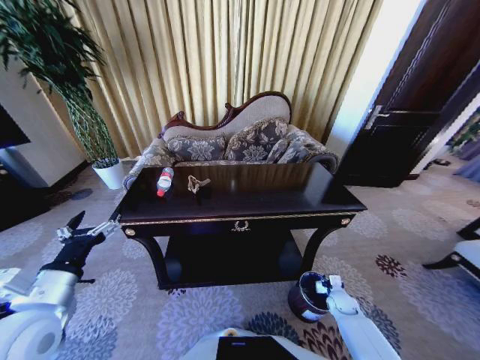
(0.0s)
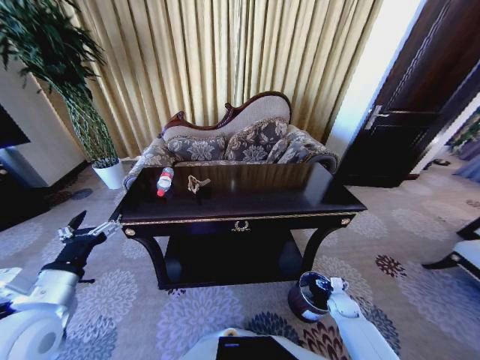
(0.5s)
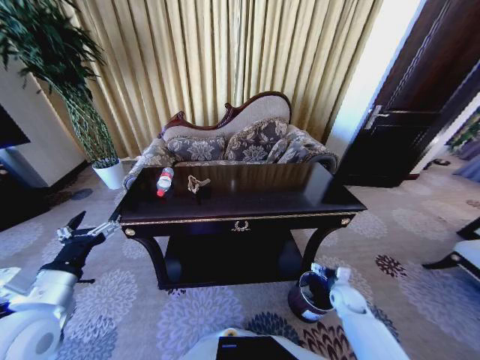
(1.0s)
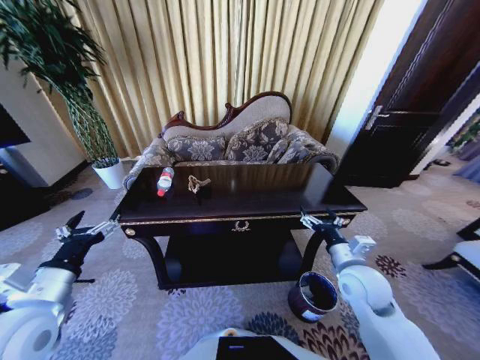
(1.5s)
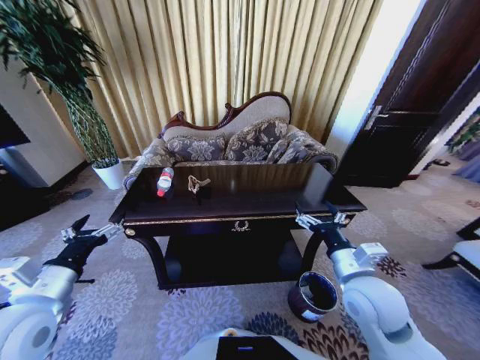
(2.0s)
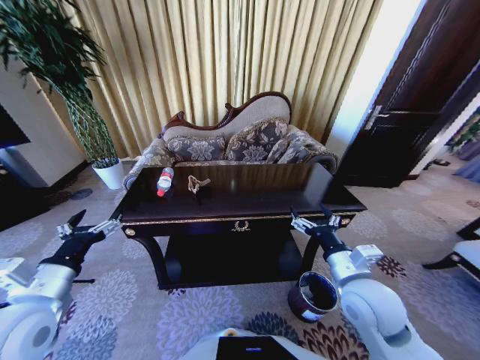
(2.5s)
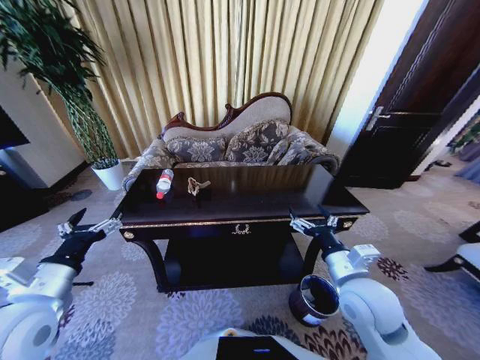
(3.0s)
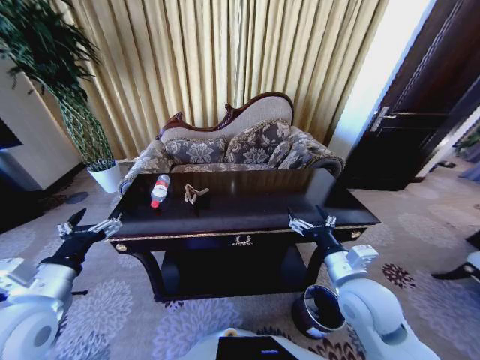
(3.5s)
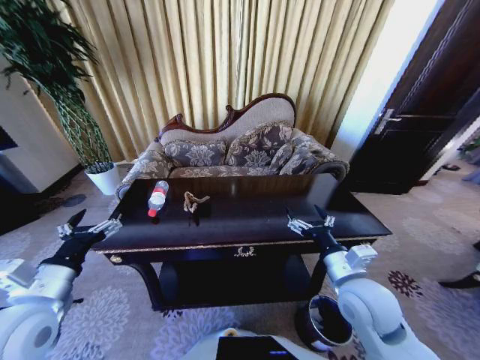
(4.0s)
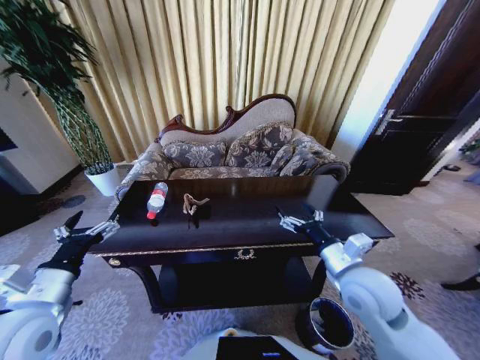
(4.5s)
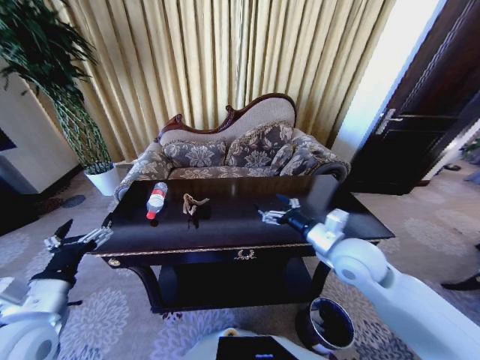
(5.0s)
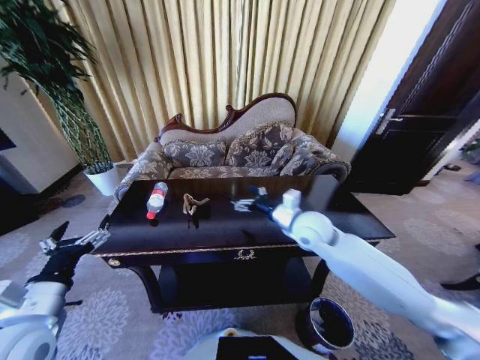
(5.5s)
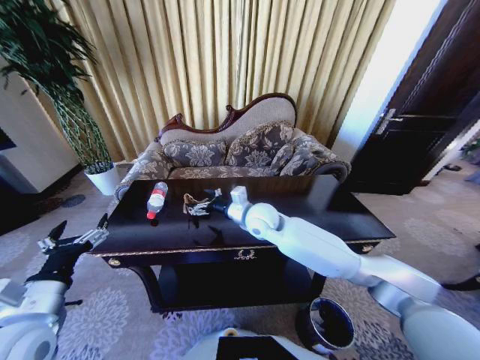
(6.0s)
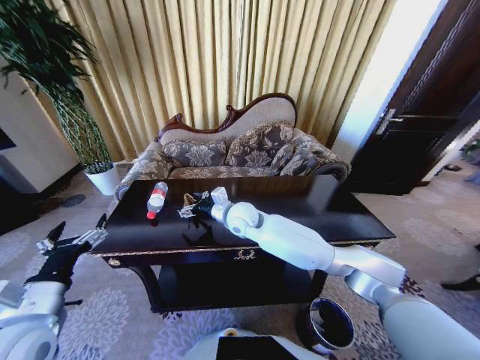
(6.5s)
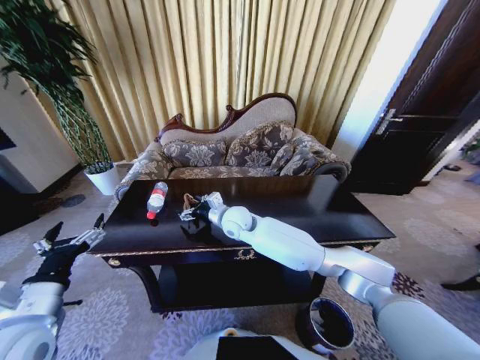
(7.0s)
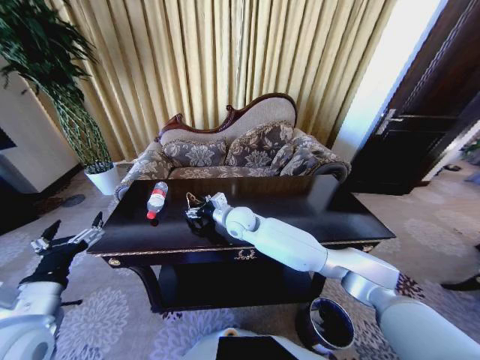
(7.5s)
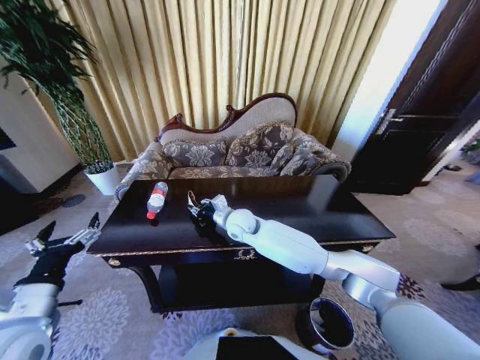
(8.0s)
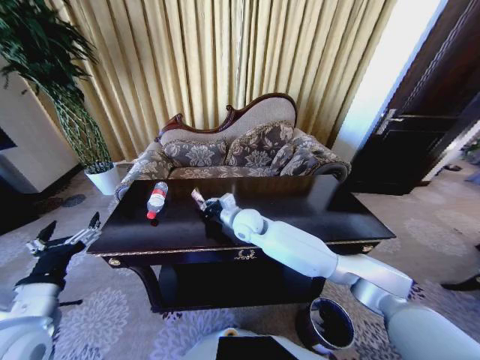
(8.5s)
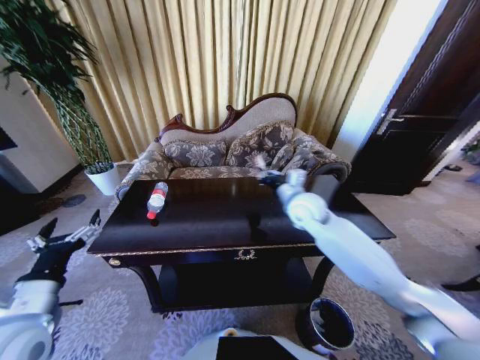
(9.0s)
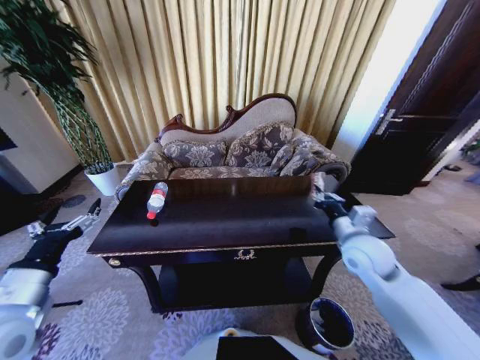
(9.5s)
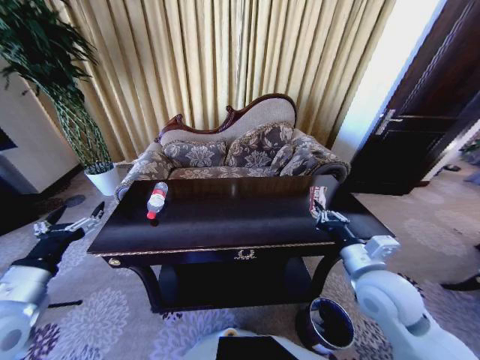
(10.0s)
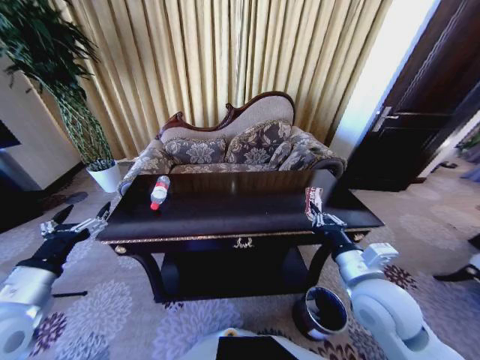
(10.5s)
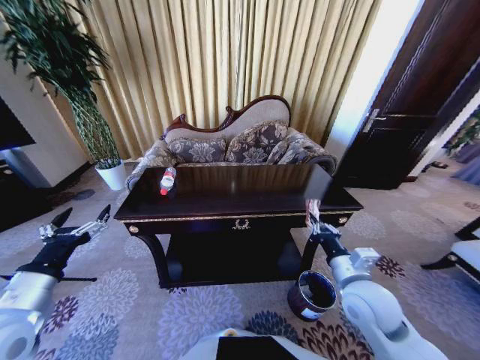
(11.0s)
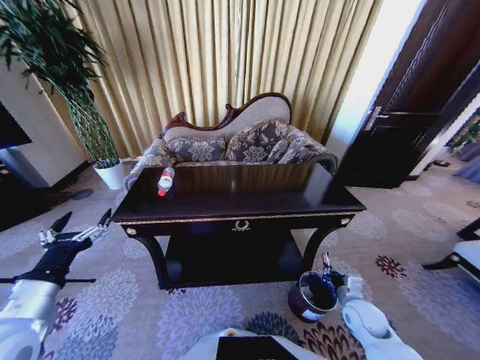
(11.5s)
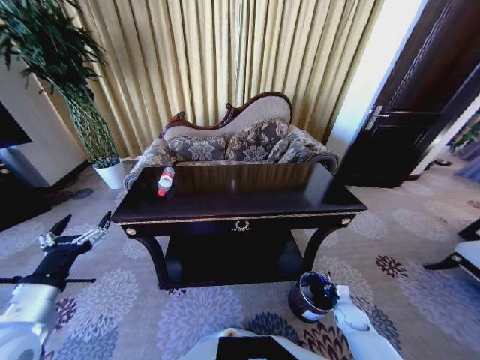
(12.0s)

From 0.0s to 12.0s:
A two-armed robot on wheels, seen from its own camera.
Task of the whole recording: Move to the front of the table and place the trash on the table into the trash bin.
From 0.0s to 2.0s: The right gripper heads upward and to the left, covering roughly 40 cm, and opens its fingers.
From 4.0s to 6.0s: The right gripper shifts some 30 cm forward and to the left.
From 6.0s to 8.0s: The right gripper goes roughly 5 cm to the left, and closes.
From 8.0s to 10.0s: The right gripper heads to the right and backward, covering roughly 35 cm.
From 10.0s to 12.0s: The right gripper heads downward, covering some 35 cm.

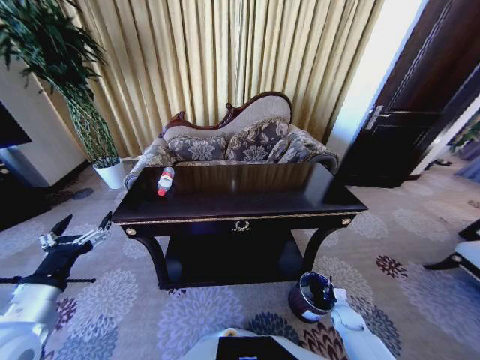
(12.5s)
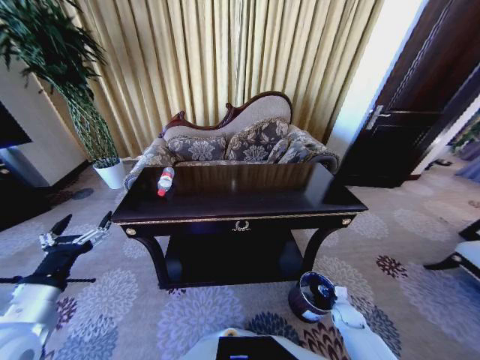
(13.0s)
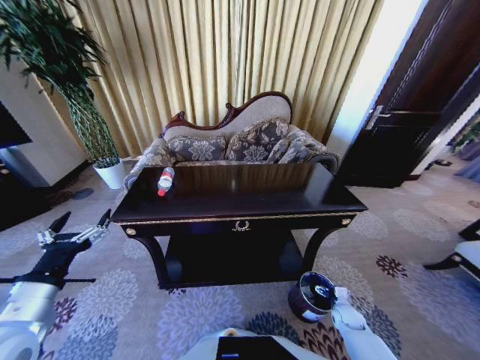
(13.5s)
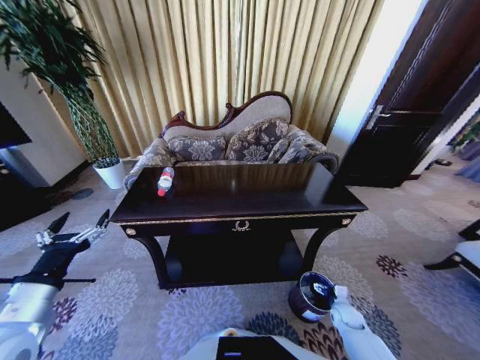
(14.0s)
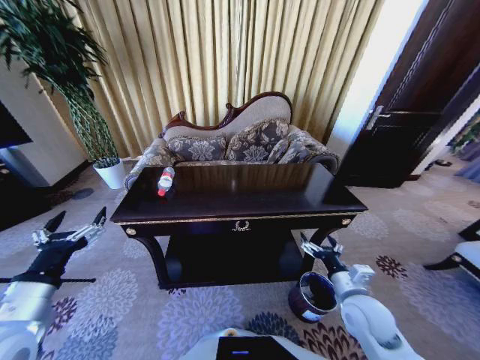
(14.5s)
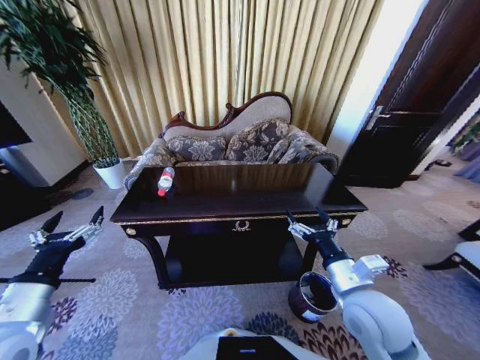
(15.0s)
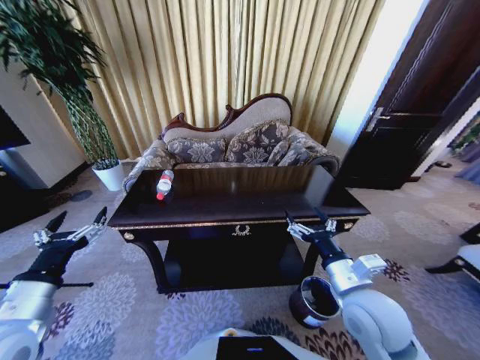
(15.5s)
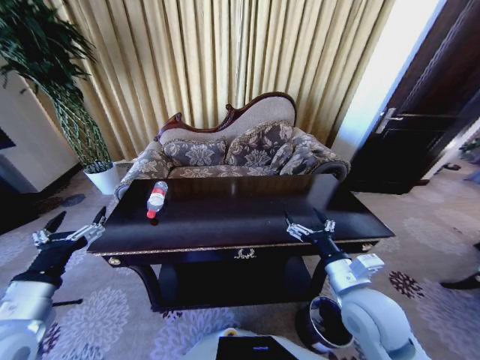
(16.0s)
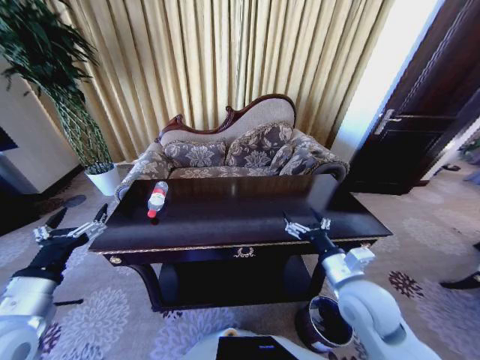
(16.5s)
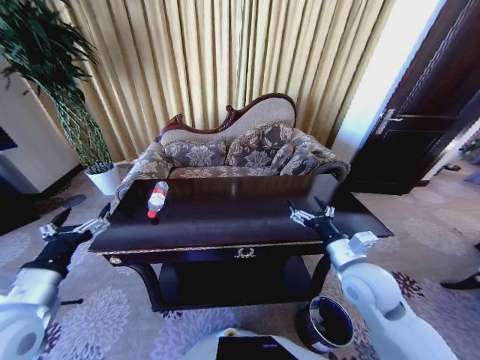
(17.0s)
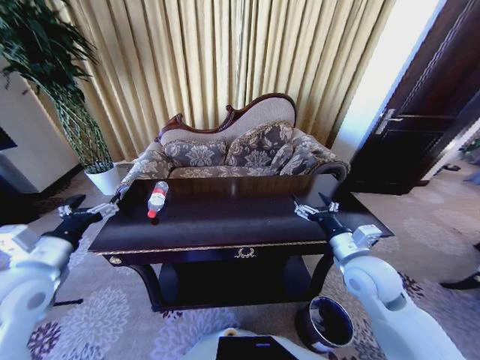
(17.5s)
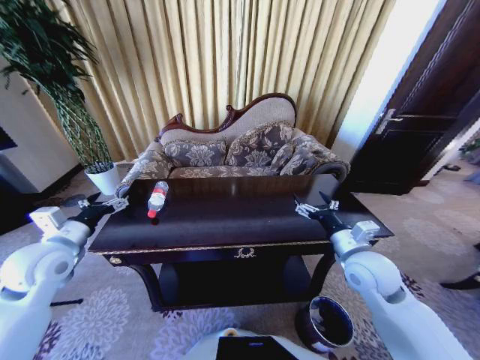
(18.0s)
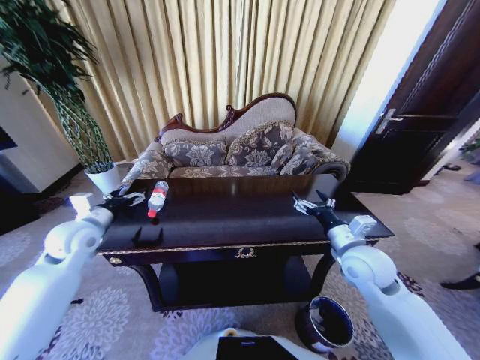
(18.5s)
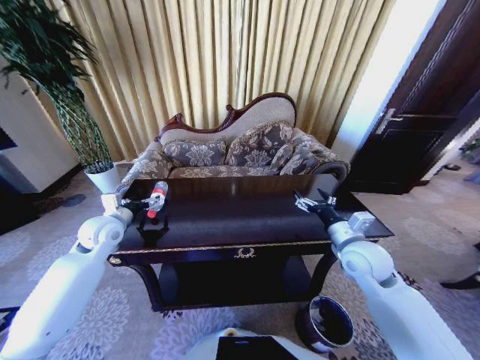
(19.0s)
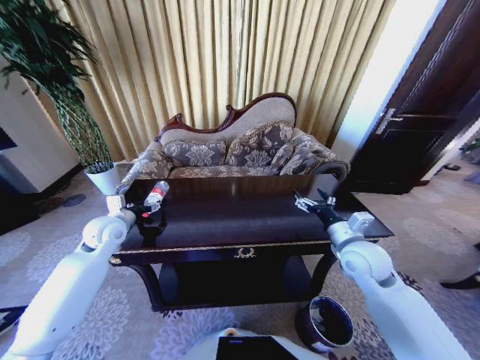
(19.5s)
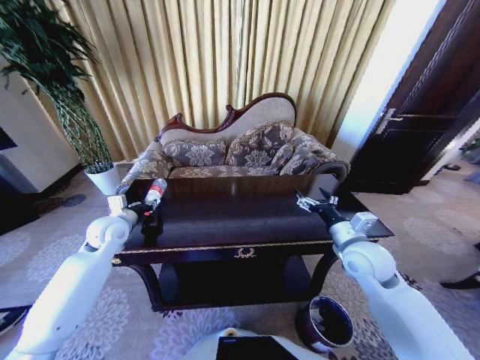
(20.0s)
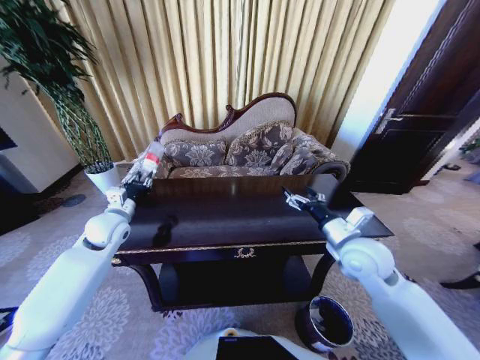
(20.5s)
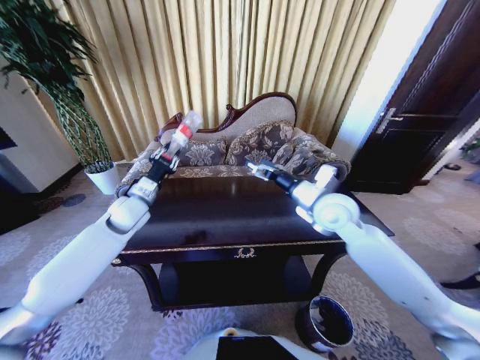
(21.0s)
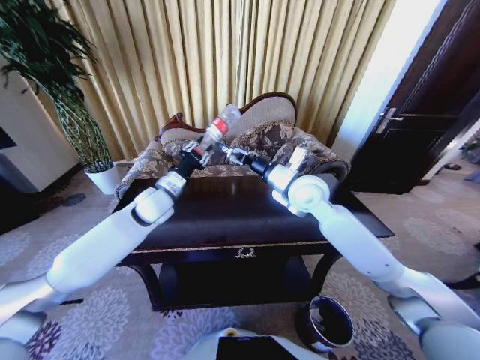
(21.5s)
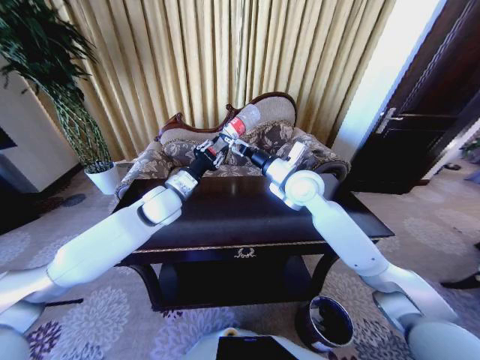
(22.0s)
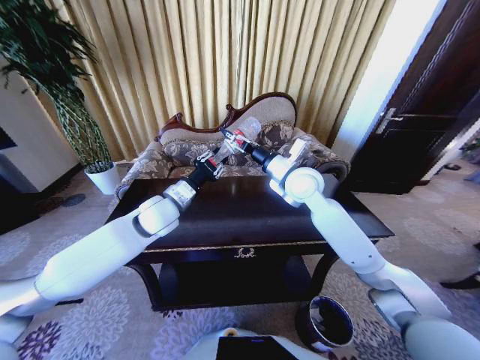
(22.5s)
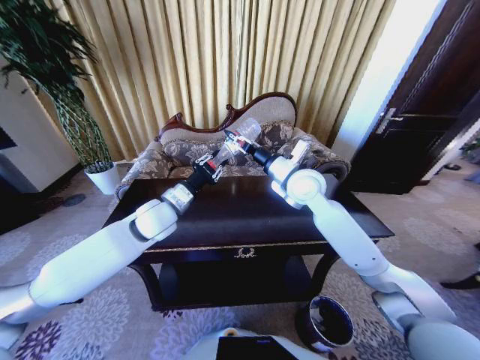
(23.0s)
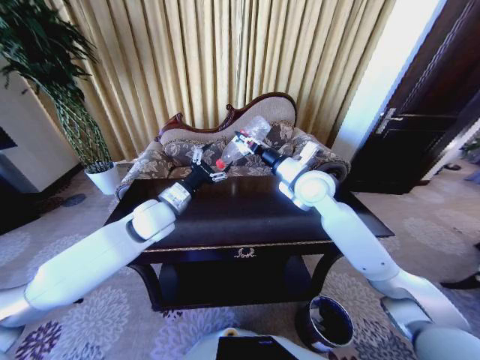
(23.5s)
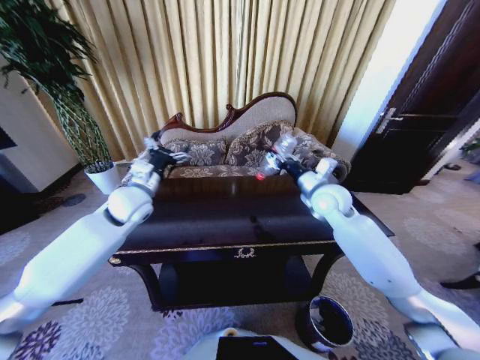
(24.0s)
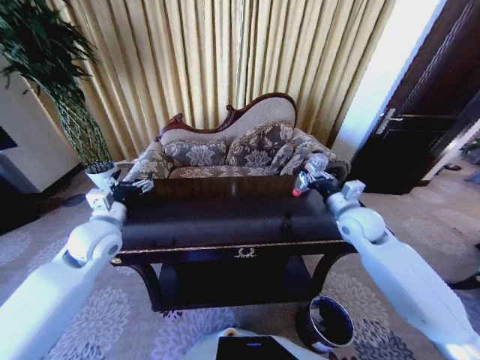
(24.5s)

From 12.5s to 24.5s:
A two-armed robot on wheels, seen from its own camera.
Task of the whole recording: Move to the front of the table and place the trash on the table into the trash bin.
From 12.5s to 14.5s: The right gripper goes about 30 cm upward and to the left, and opens up.
From 14.5s to 16.5s: The right gripper travels upward by some 10 cm.
From 16.5s to 18.5s: The right gripper heads forward, covering roughly 5 cm; the left gripper moves forward, about 20 cm.
From 18.5s to 20.5s: The left gripper travels forward by roughly 5 cm, and closes its fingers.
From 20.5s to 22.5s: The right gripper goes roughly 20 cm forward, to the left and upward. Meanwhile the left gripper heads to the right, covering about 15 cm.
From 22.5s to 24.5s: The right gripper heads to the right, downward and backward, covering about 20 cm, and closes up. The left gripper moves to the left and backward, some 15 cm, and opens up.

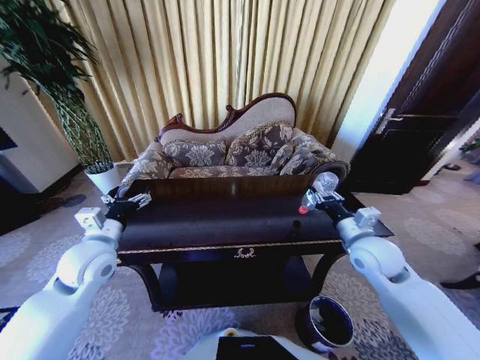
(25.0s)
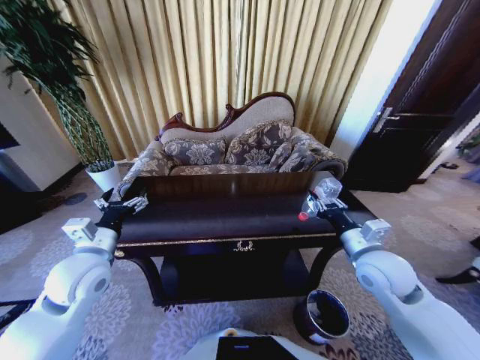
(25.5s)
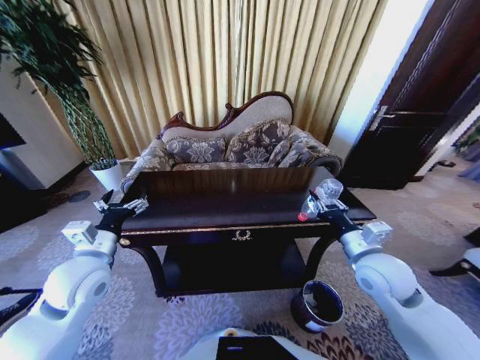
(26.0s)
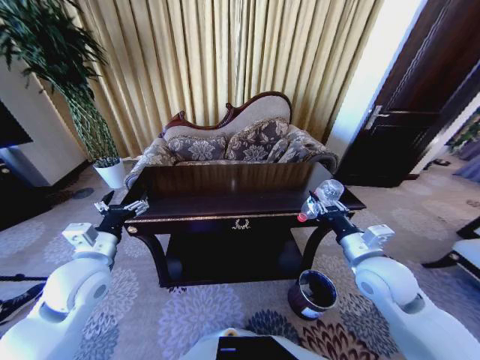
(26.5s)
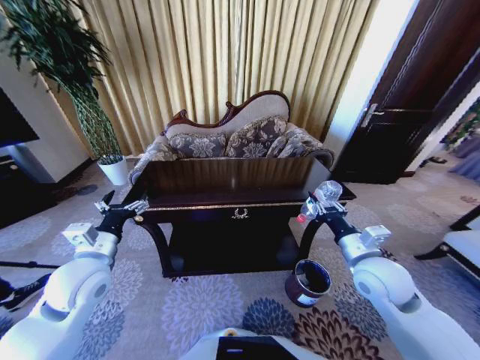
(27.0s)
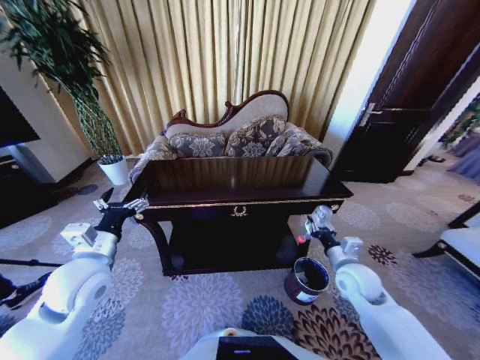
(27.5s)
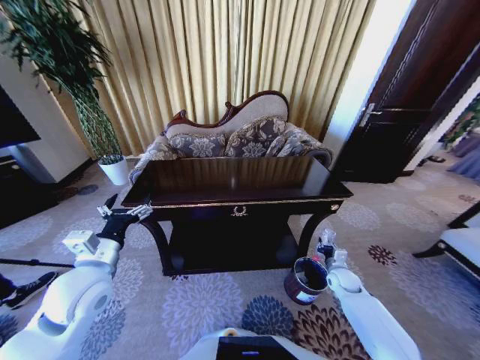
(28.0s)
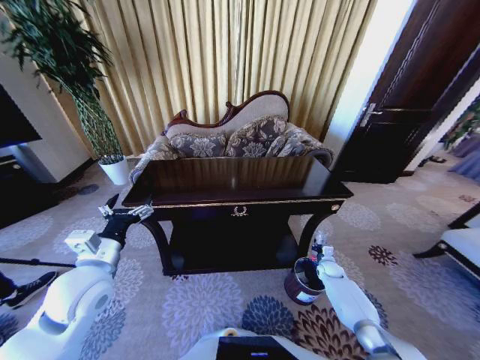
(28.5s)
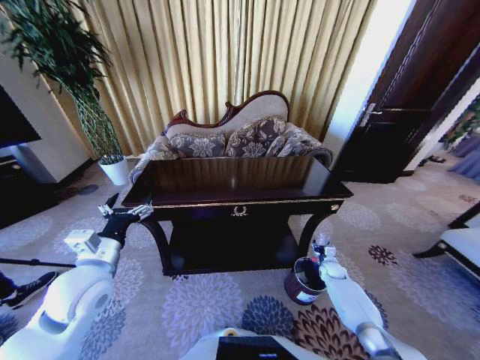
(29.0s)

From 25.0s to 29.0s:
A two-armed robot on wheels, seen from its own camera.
Task of the whole recording: Move to the front of the table and place the trash on the table into the trash bin.
From 25.0s to 27.0s: The right gripper goes some 5 cm backward.
From 27.0s to 29.0s: The right gripper travels downward by about 35 cm.
